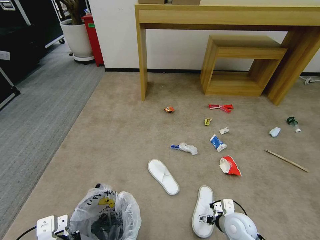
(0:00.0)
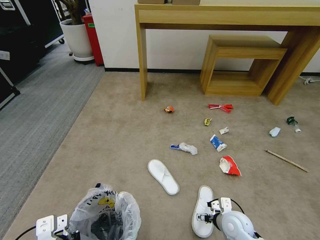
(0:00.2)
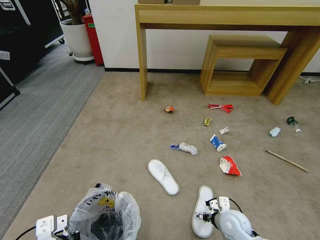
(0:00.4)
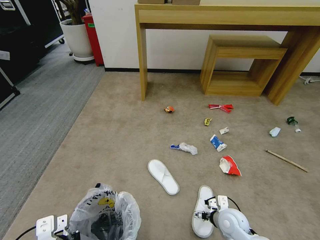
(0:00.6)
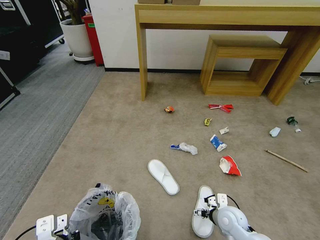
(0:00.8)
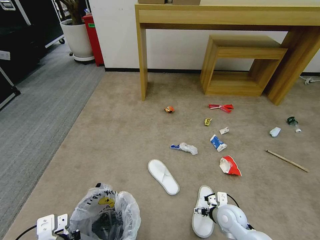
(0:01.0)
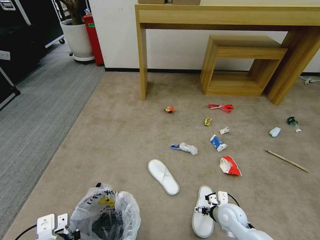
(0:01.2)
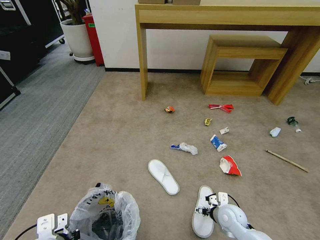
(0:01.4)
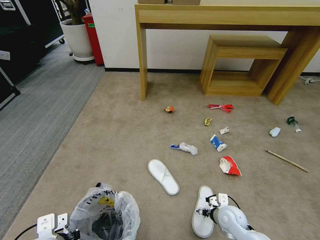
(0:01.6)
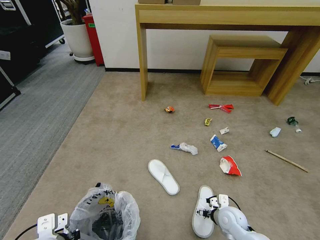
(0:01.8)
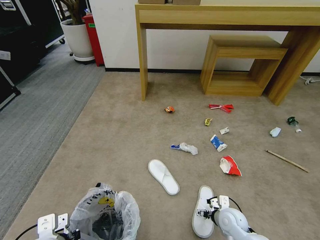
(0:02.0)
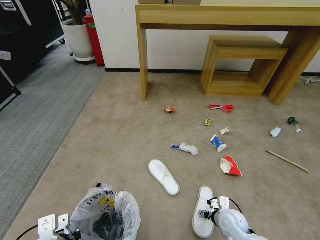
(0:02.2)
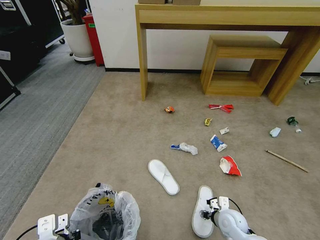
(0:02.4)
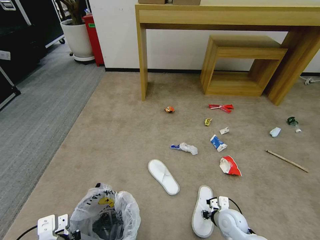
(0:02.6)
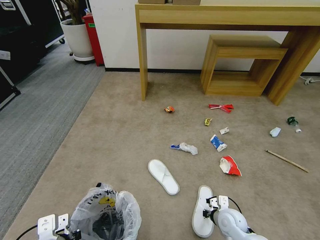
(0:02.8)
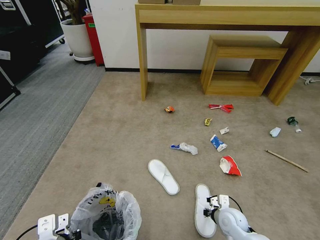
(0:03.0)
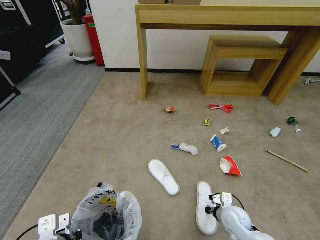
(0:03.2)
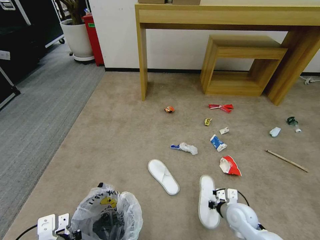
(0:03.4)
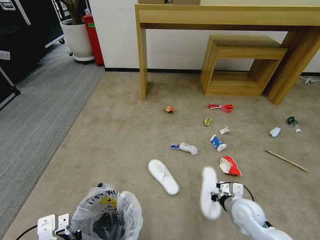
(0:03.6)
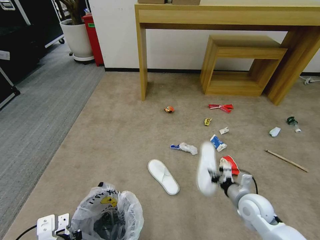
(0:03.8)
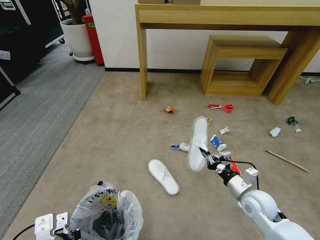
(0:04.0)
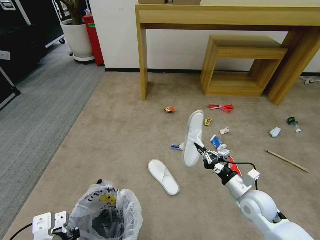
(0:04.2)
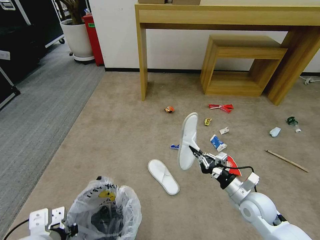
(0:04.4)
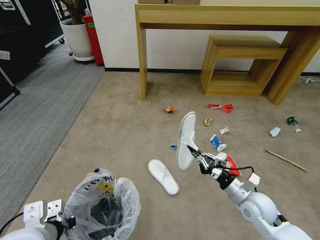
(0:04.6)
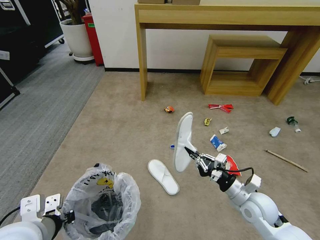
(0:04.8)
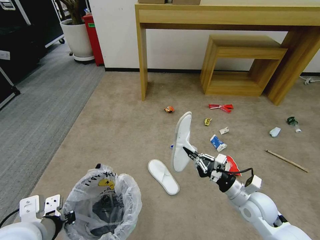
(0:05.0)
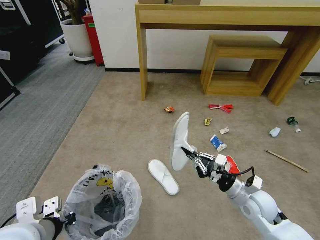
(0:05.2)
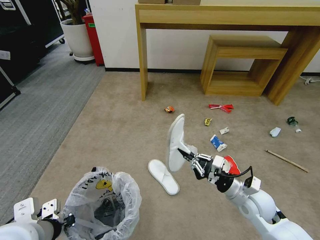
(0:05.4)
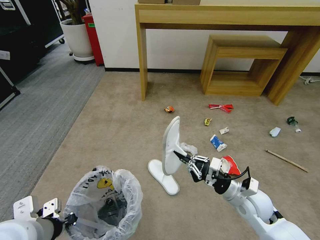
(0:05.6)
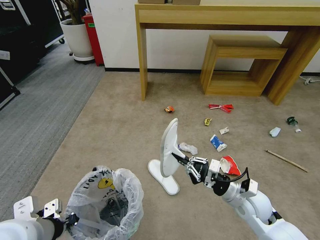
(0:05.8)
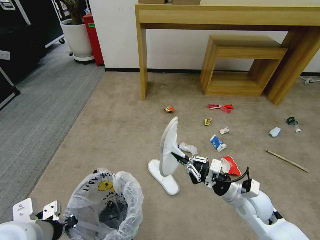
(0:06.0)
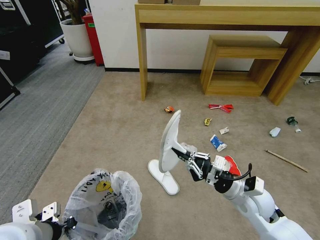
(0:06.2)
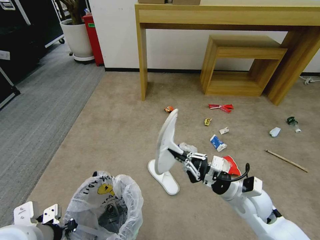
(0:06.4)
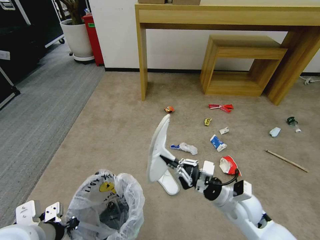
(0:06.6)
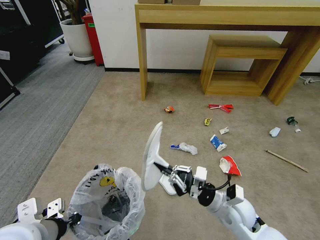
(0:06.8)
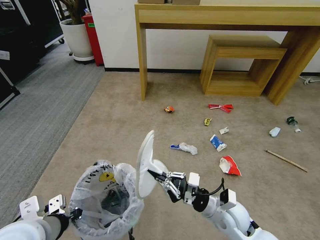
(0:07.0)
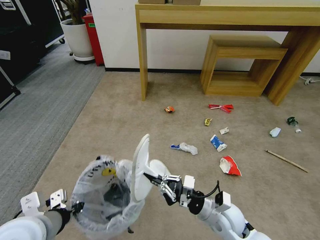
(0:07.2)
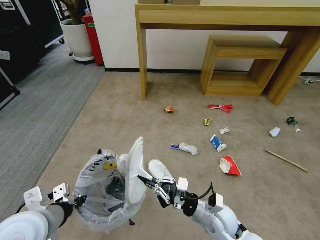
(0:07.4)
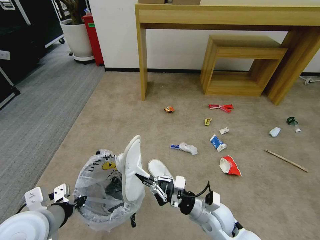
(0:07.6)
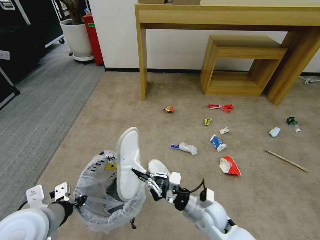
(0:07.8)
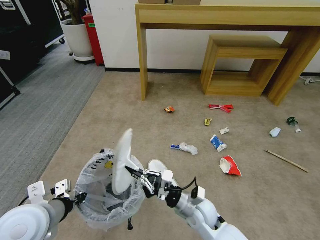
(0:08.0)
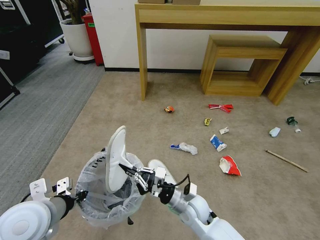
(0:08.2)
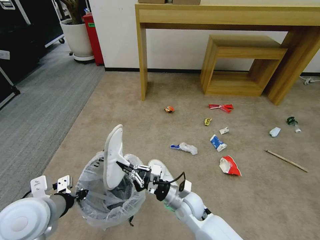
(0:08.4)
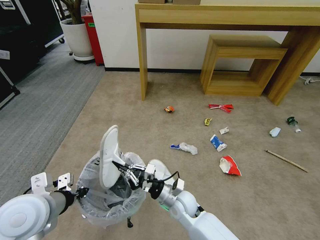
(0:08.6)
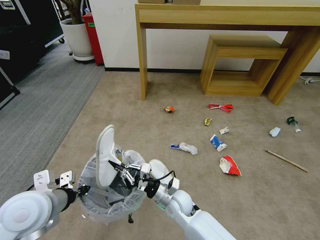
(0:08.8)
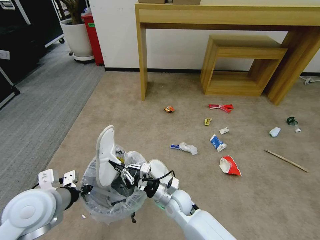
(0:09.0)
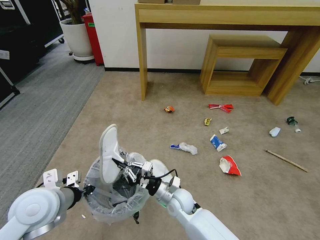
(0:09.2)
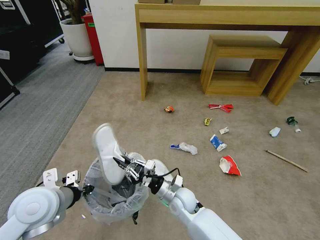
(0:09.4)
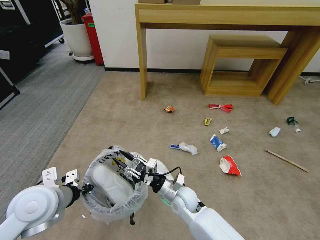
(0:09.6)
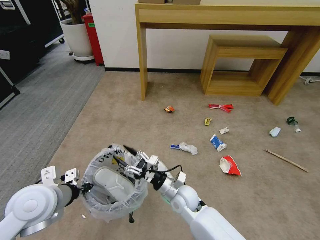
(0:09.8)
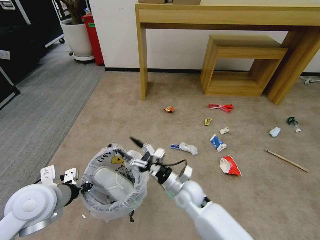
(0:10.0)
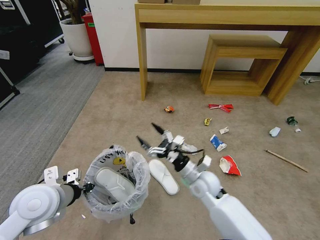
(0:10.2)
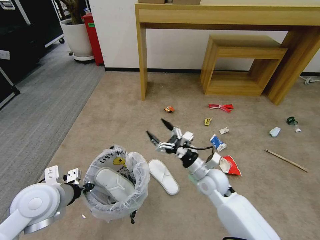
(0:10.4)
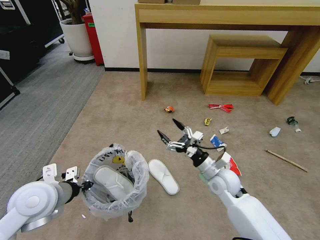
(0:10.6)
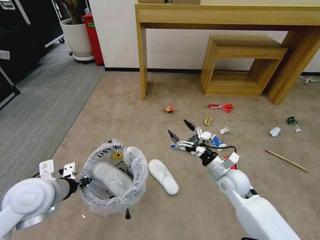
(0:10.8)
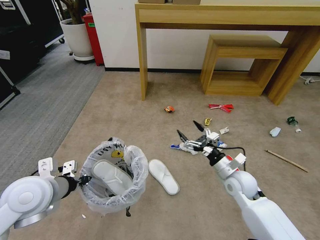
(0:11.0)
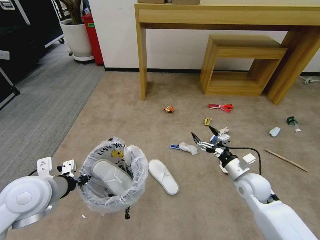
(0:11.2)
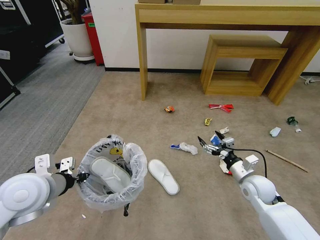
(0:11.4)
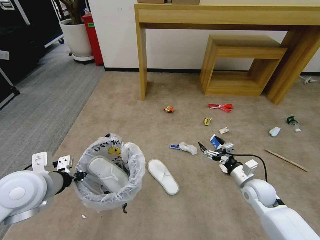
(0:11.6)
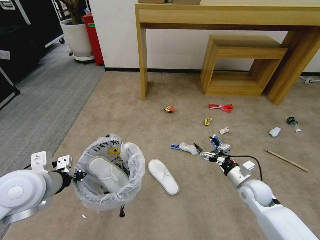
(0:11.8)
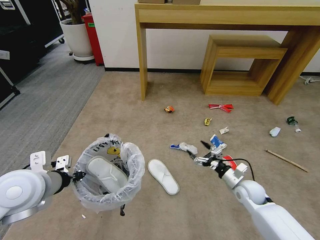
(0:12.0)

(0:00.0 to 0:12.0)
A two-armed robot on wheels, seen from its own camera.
Task of the whole recording: Pick up the trash bin and place the garbage on the floor into it.
0:00.0 - 0:01.6: There are only small adjustments of the grippers.
0:01.6 - 0:03.0: The right gripper closes its fingers.
0:03.0 - 0:04.4: The right gripper travels upward by about 10 cm.
0:04.4 - 0:06.0: The left gripper ends up about 5 cm from where it was.
0:06.0 - 0:07.6: The right gripper goes about 10 cm to the left.
0:07.6 - 0:09.0: The right gripper moves to the left and forward, about 15 cm.
0:09.0 - 0:10.4: The right gripper travels to the right and upward by approximately 15 cm, and opens its fingers.
0:10.4 - 0:12.0: The right gripper goes about 15 cm to the right and downward. Meanwhile the left gripper is displaced upward by roughly 5 cm.

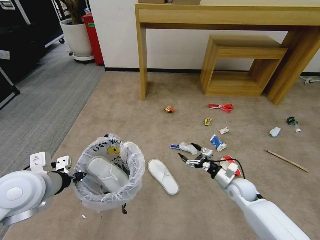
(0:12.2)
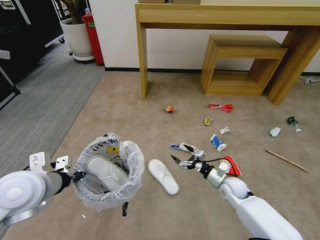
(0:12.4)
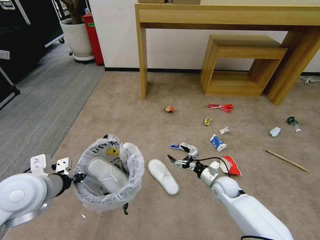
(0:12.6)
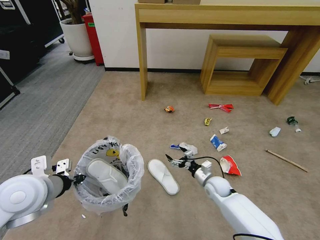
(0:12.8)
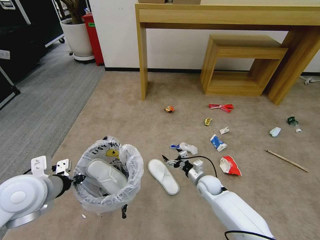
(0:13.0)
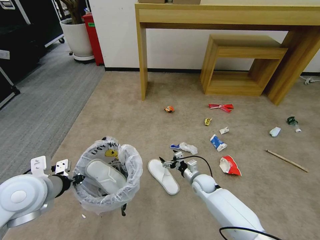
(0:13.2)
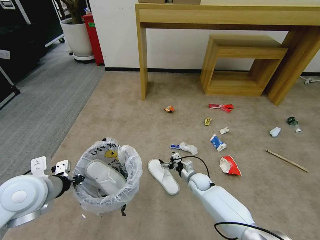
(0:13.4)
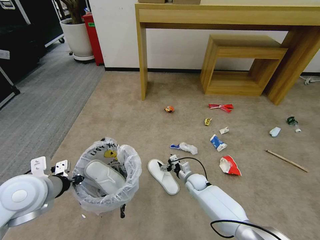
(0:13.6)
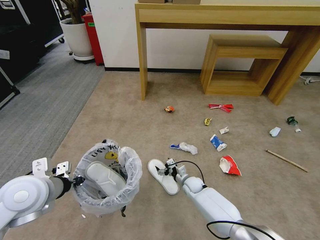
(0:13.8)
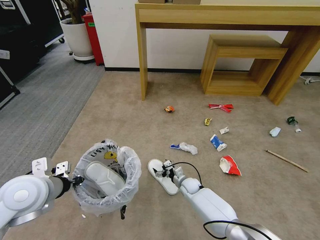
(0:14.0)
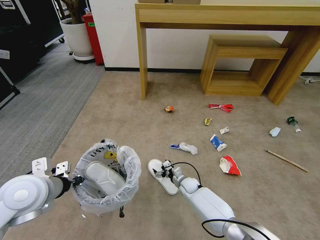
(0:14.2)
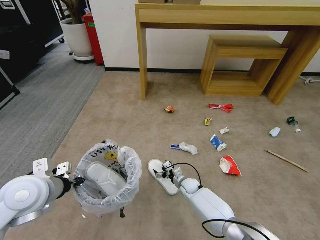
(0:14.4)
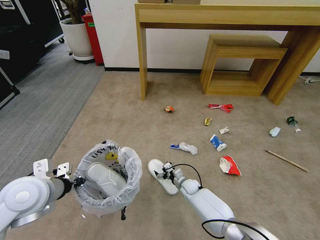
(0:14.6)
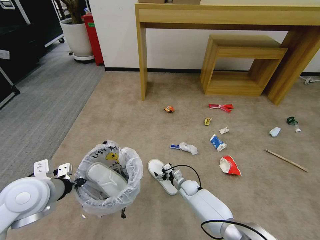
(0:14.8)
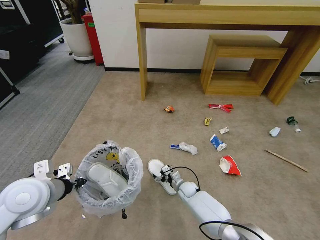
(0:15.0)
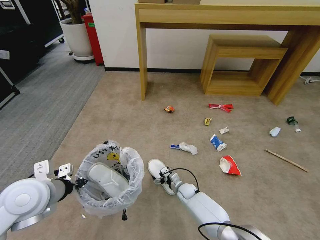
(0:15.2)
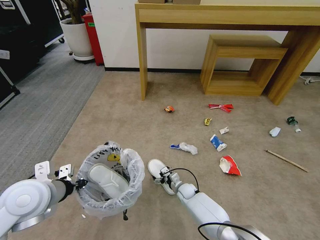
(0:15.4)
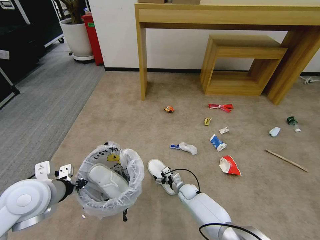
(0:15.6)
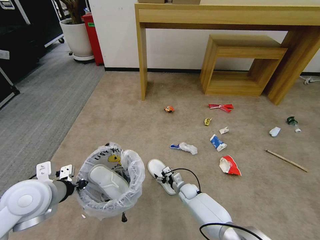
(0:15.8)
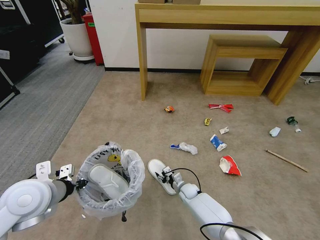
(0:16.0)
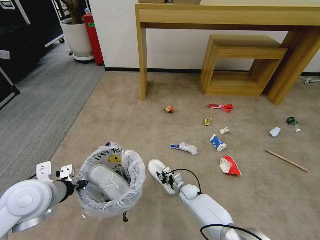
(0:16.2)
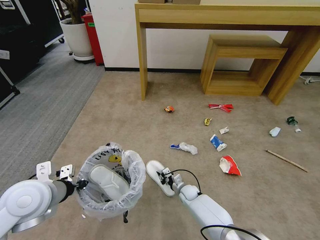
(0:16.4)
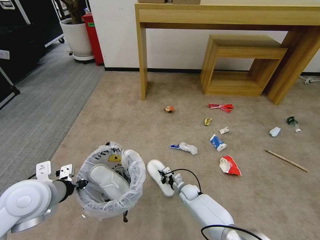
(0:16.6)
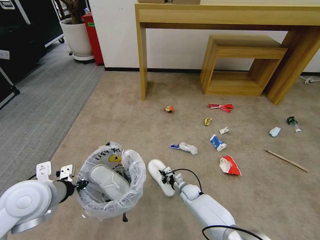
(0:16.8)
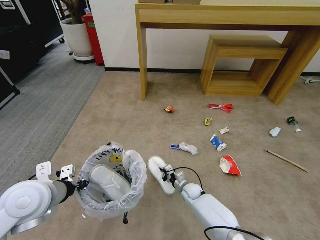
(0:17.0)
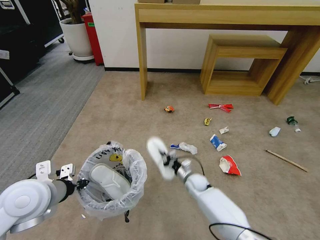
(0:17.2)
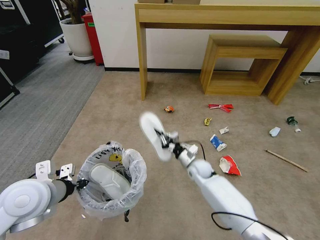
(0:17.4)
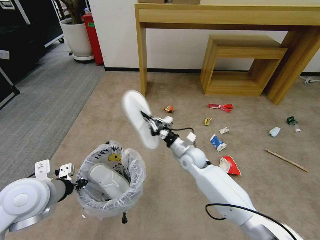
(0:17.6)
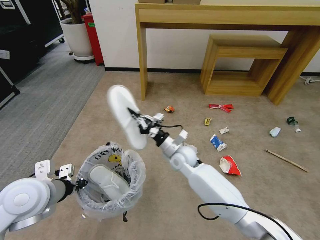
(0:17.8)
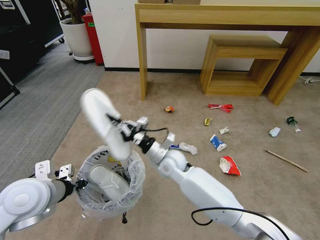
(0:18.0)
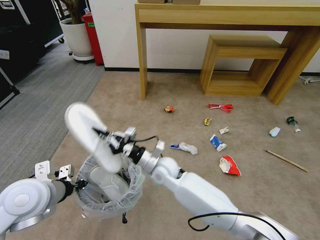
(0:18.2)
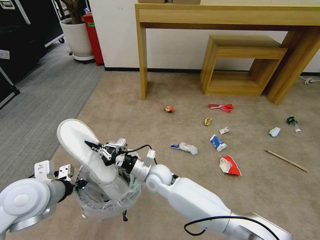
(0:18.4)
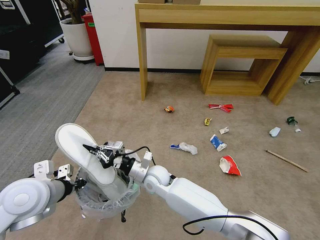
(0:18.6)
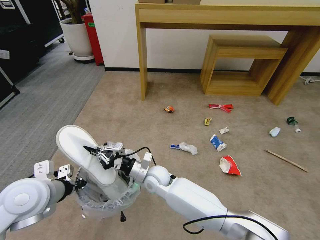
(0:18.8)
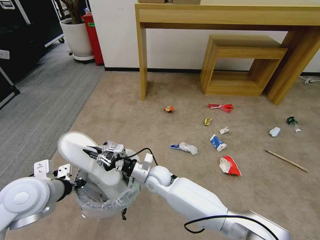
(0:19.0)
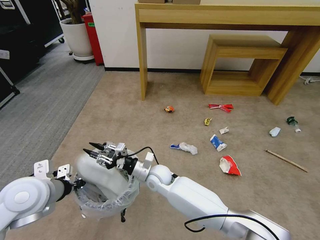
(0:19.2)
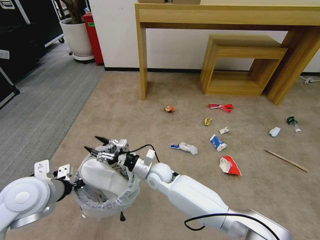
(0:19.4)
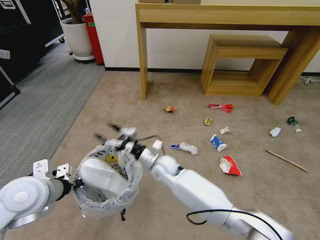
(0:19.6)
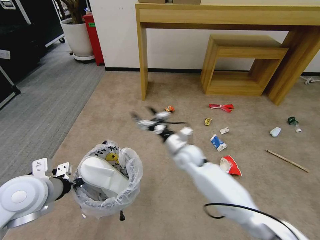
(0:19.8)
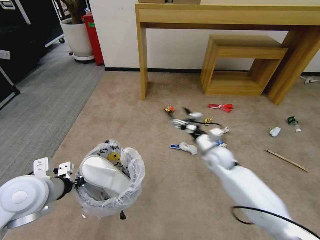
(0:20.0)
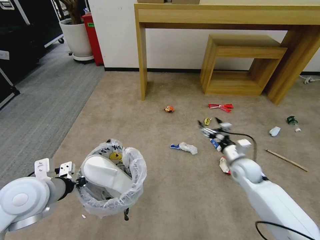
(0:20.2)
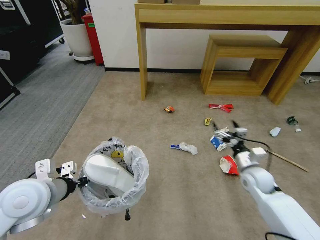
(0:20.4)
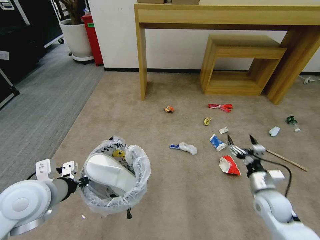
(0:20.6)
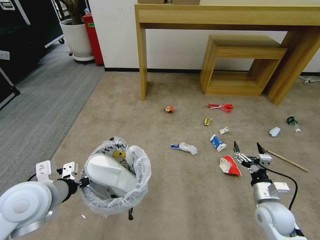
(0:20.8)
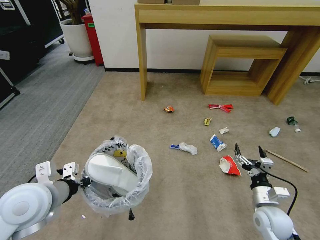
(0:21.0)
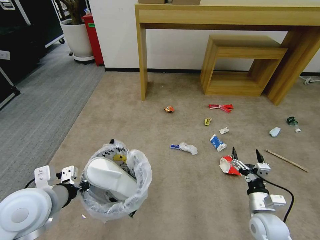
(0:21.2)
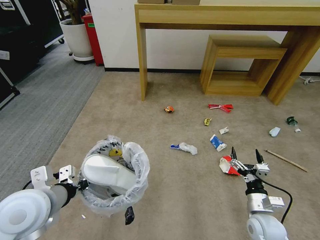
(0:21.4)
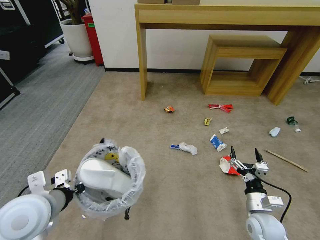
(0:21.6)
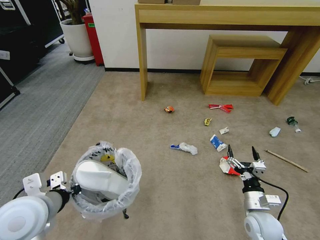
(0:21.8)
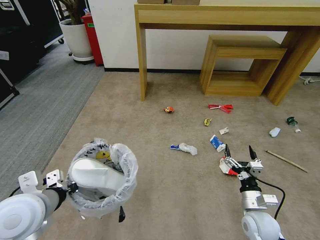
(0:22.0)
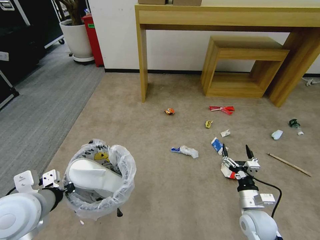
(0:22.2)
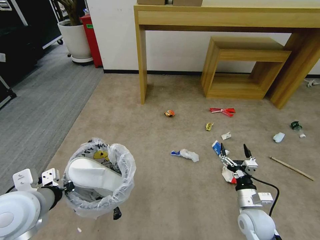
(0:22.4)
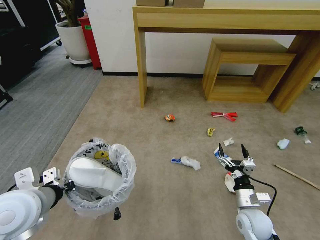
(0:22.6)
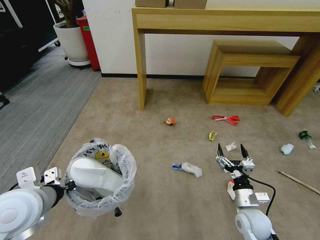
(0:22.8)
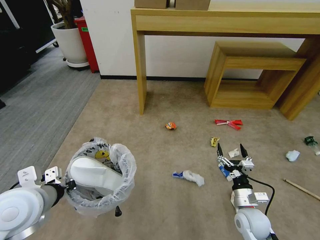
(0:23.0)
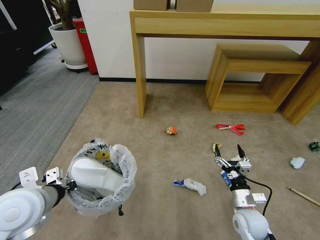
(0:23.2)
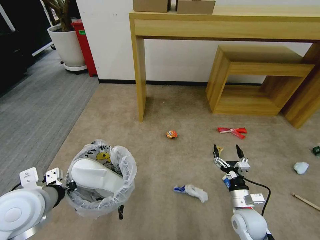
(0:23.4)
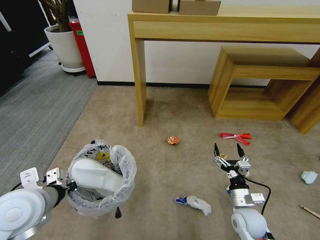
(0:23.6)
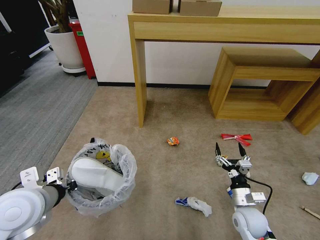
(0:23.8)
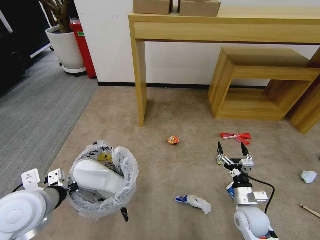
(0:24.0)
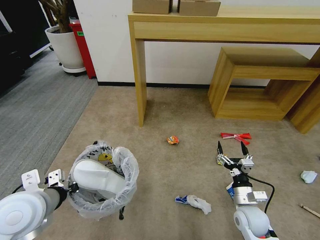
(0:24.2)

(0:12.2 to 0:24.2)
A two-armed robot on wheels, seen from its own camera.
Task of the whole recording: Pick up the trash bin and place the garbage on the floor into it.
0:12.2 - 0:13.8: The right gripper is displaced to the left, downward and forward by some 20 cm.
0:13.8 - 0:15.2: The right gripper moves about 5 cm.
0:15.2 - 0:16.6: The right gripper closes.
0:16.6 - 0:18.2: The right gripper is displaced upward and to the left by approximately 30 cm.
0:18.2 - 0:19.8: The right gripper shifts approximately 5 cm to the right, and opens its fingers.
0:19.8 - 0:21.2: The right gripper is displaced to the right and backward by some 30 cm.
